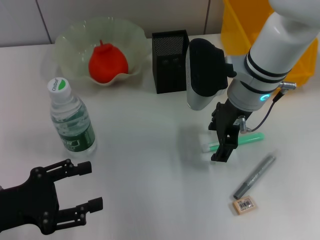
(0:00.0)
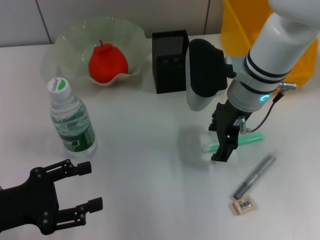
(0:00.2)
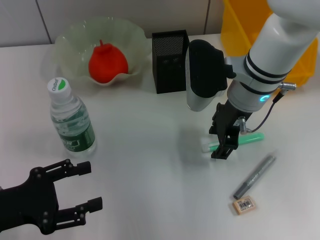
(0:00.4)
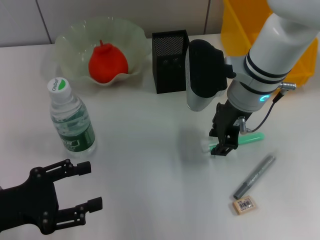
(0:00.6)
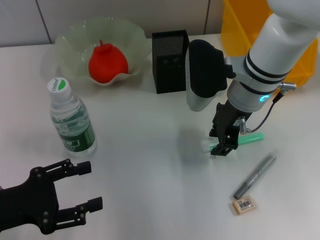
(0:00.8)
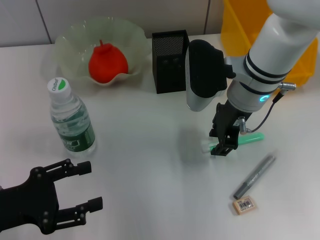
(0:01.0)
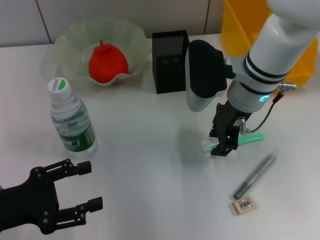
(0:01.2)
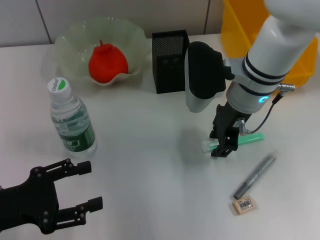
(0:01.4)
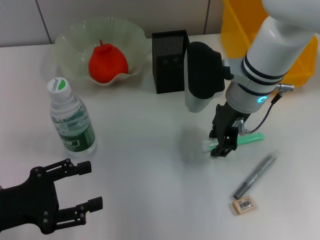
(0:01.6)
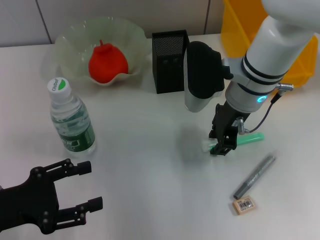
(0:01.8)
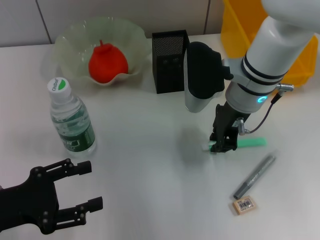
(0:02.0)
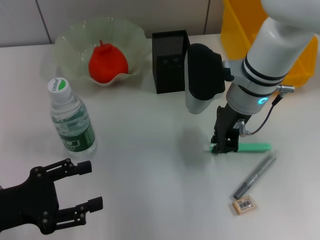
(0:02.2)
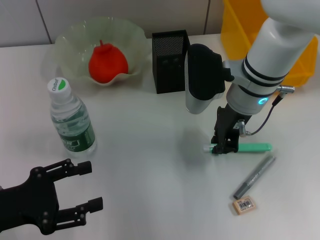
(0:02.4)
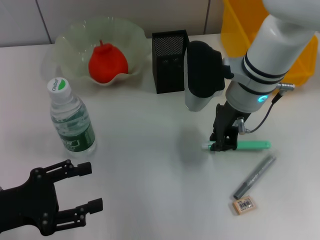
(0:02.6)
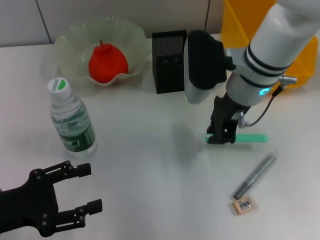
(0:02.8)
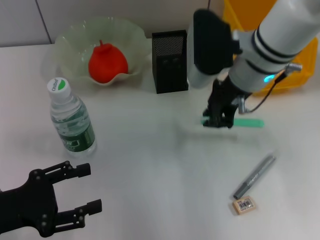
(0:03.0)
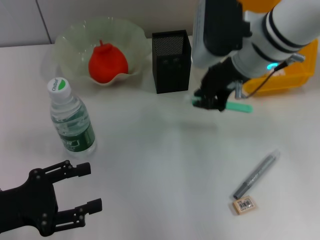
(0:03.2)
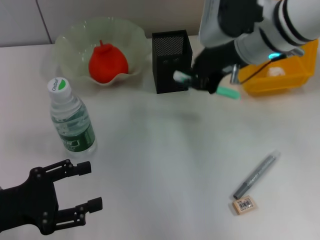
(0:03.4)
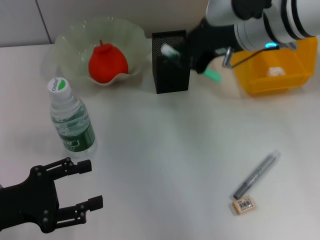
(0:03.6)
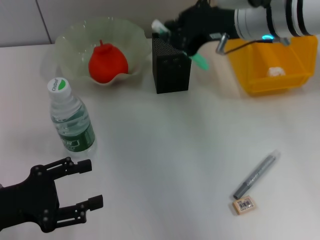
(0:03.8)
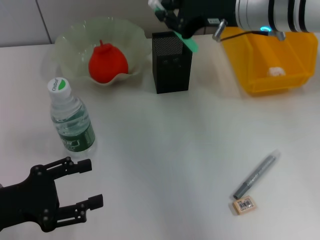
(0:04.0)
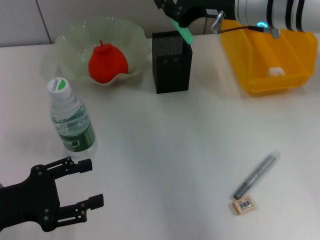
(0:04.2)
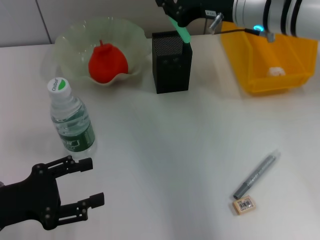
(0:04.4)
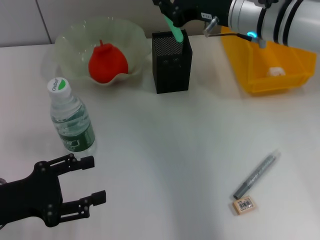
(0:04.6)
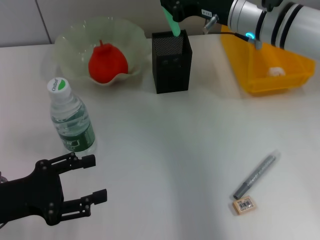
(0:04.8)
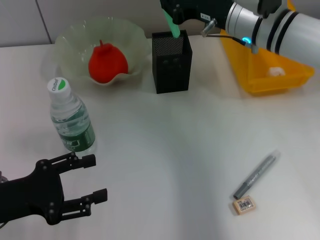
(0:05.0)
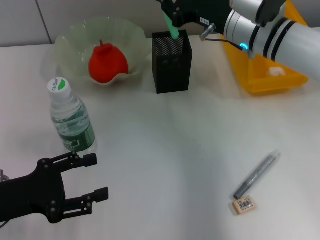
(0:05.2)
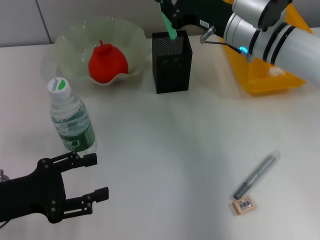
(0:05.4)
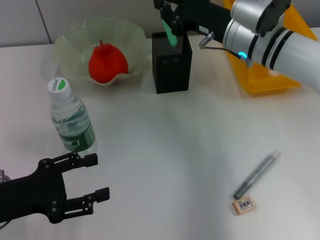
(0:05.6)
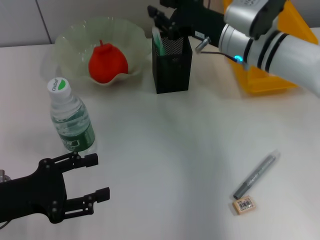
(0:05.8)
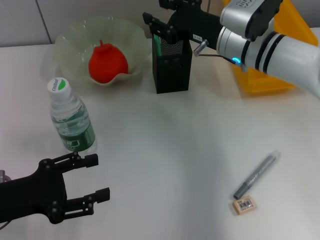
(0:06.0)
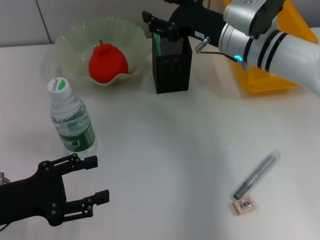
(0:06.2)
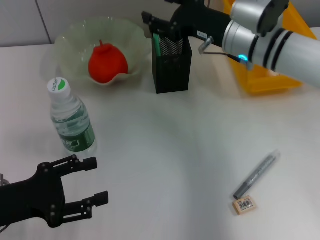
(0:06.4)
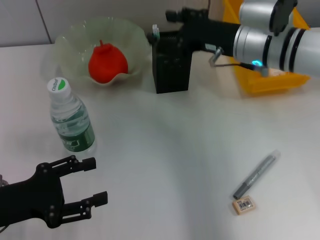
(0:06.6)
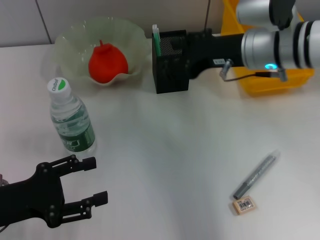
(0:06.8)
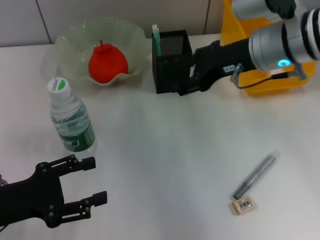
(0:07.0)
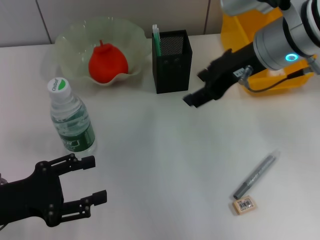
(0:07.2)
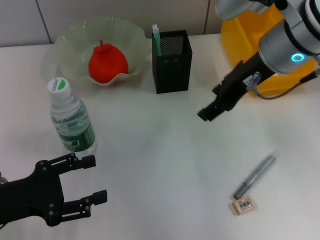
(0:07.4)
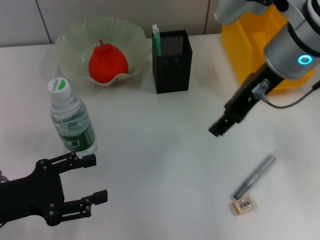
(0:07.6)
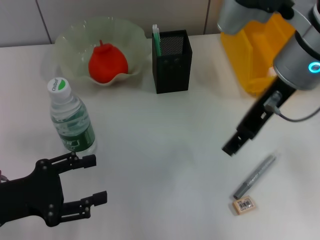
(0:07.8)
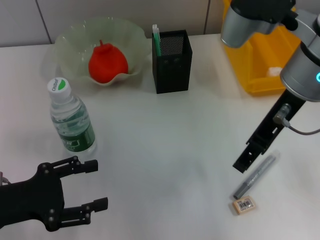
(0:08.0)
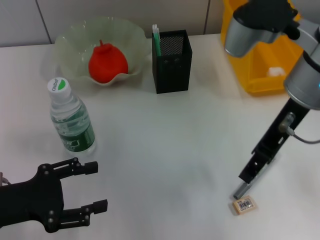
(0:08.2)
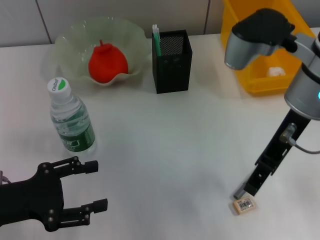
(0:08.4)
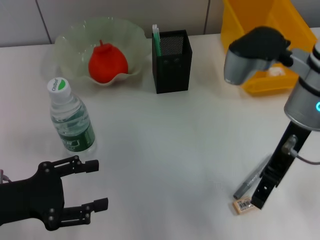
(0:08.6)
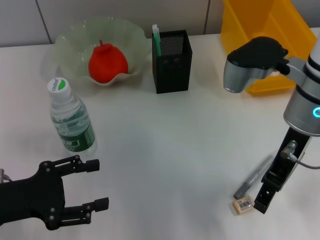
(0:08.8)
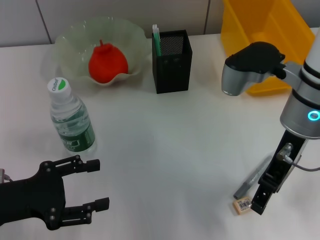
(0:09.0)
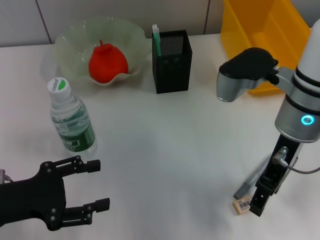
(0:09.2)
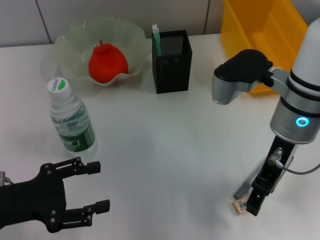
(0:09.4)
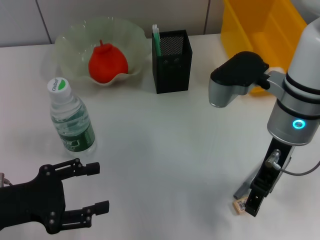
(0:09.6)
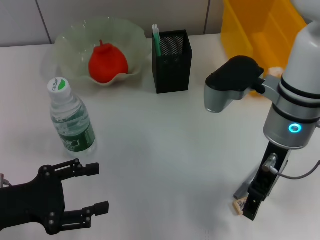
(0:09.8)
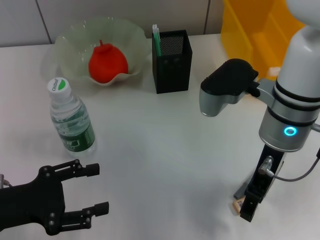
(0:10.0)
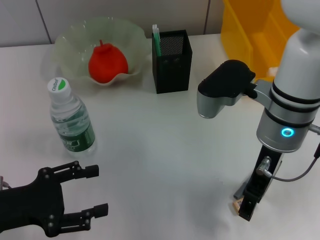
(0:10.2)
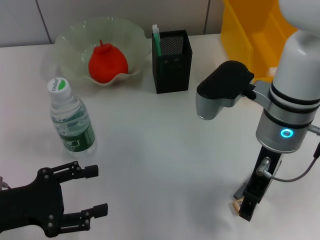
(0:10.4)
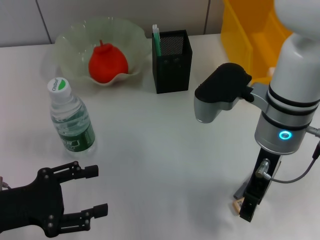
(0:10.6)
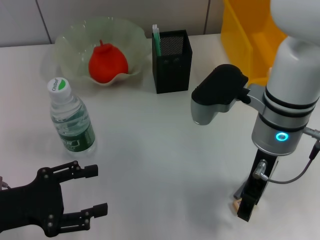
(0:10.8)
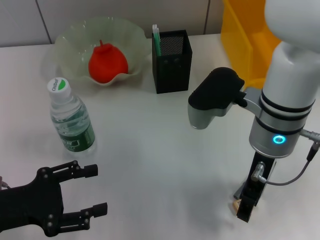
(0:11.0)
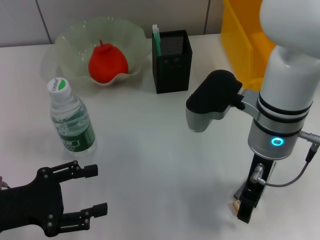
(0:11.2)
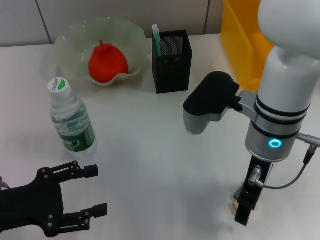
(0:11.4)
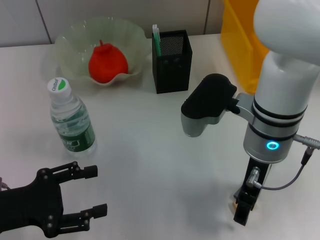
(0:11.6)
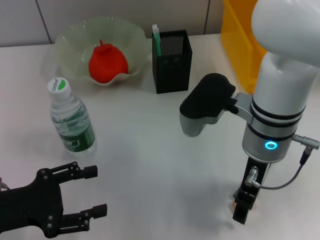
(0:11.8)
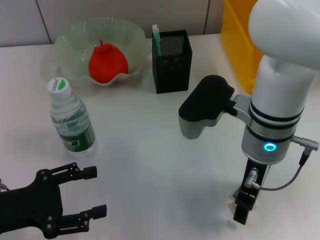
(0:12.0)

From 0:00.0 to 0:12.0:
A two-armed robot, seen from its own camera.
Step, from 0:00.0 to 0:02.2: Grab the blue utility knife with the right hand.
Step, from 0:02.4 to 0:05.8: Place the blue utility knife into the pen holder with the right hand.
From 0:00.0 to 0:01.6: The right gripper closes its fingers.
From 0:01.6 to 0:03.0: The grippers make only small movements.
From 0:04.4 to 0:06.0: The right gripper travels downward by approximately 5 cm.
From 0:06.0 to 0:07.6: The right gripper shifts about 15 cm upward and backward, and opens its fingers.
From 0:07.6 to 0:09.0: The right gripper moves downward, some 5 cm.
From 0:09.0 to 0:10.4: There are only small adjustments of the grippers.
From 0:10.4 to 0:12.0: The grippers make only small movements.

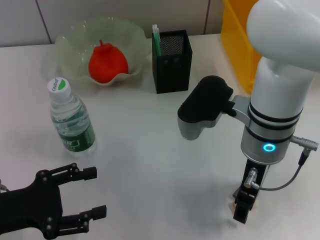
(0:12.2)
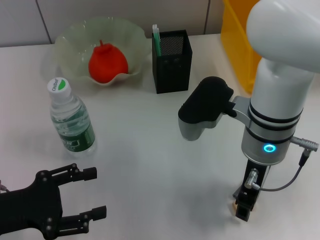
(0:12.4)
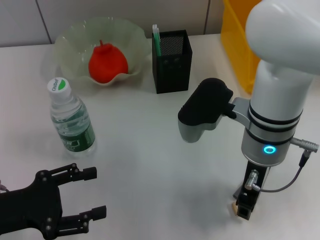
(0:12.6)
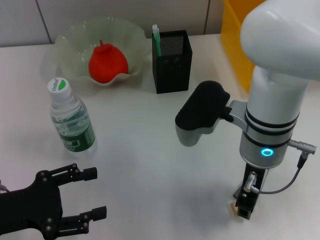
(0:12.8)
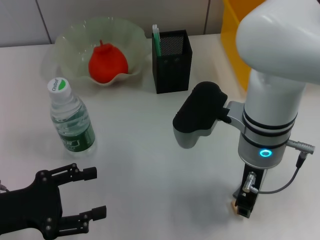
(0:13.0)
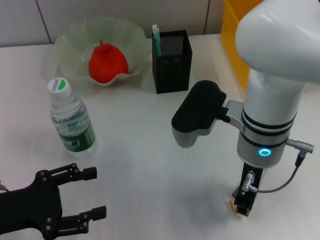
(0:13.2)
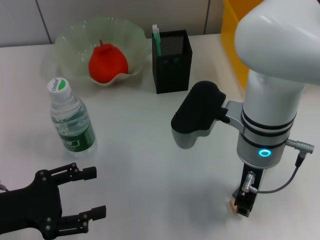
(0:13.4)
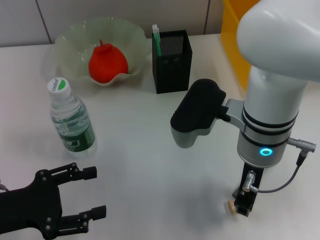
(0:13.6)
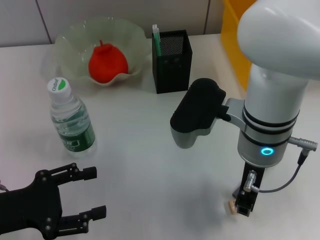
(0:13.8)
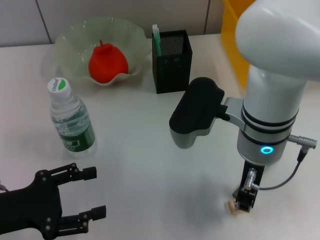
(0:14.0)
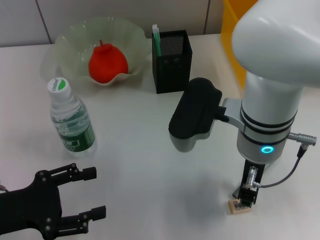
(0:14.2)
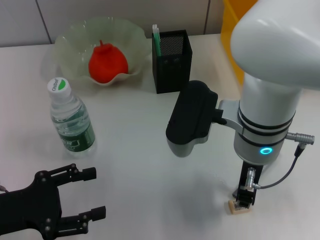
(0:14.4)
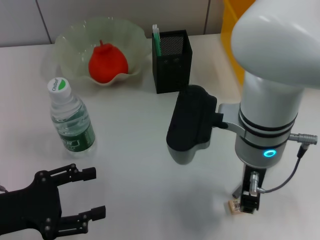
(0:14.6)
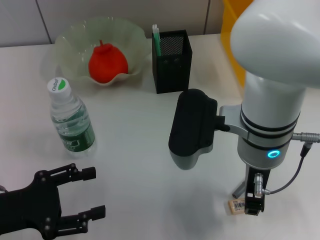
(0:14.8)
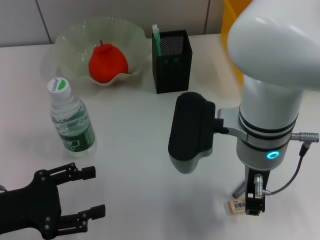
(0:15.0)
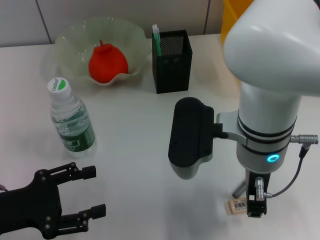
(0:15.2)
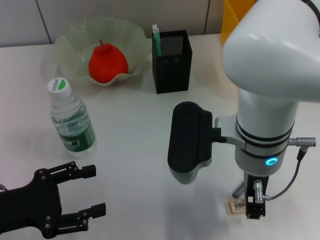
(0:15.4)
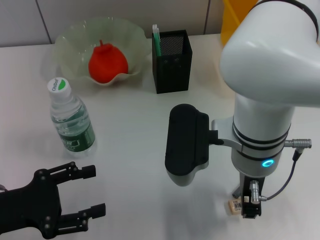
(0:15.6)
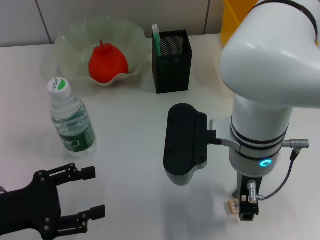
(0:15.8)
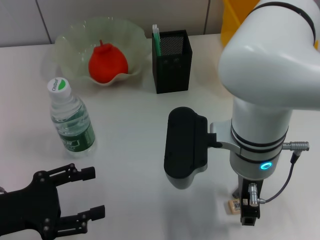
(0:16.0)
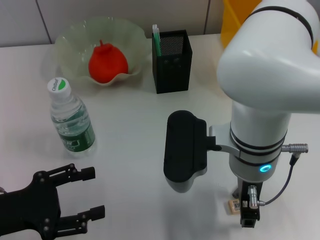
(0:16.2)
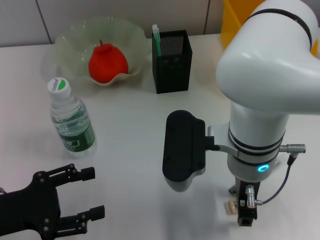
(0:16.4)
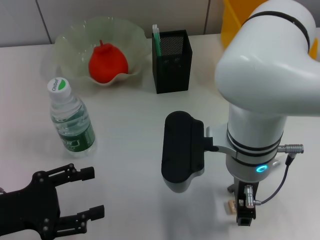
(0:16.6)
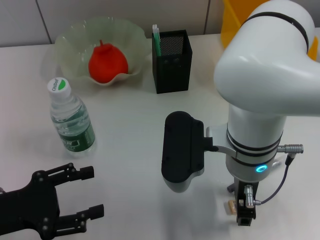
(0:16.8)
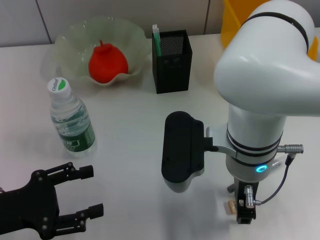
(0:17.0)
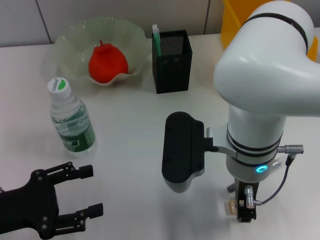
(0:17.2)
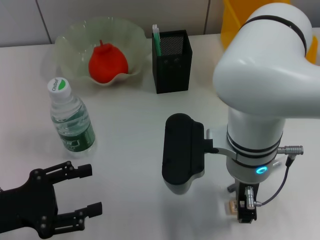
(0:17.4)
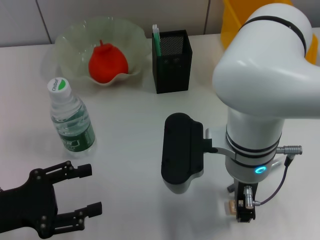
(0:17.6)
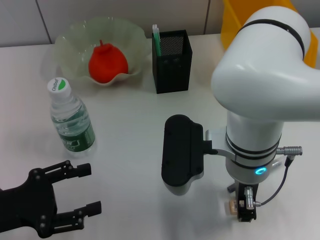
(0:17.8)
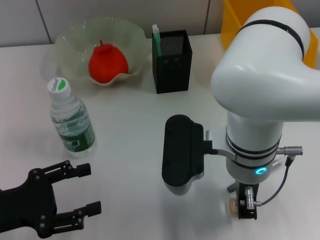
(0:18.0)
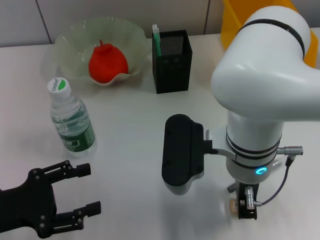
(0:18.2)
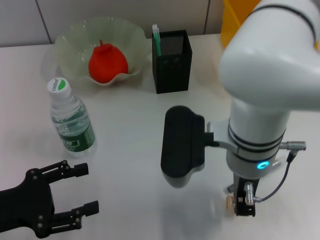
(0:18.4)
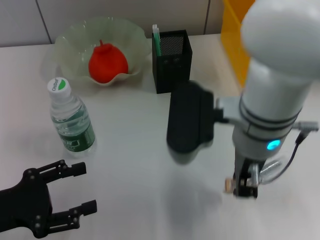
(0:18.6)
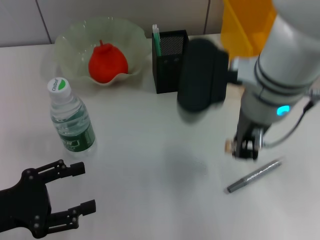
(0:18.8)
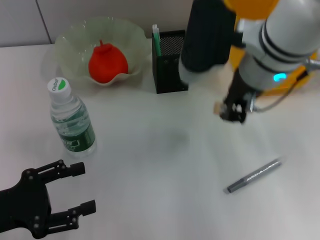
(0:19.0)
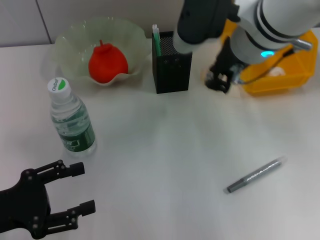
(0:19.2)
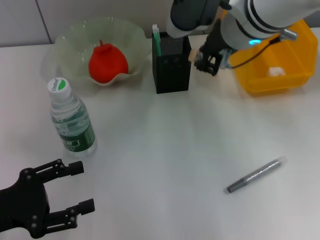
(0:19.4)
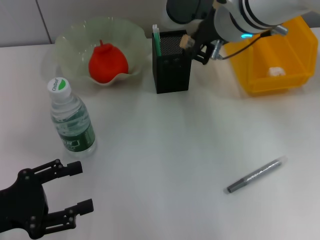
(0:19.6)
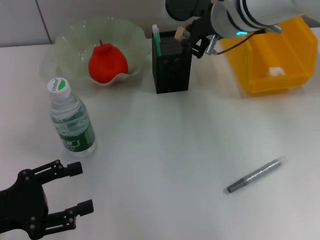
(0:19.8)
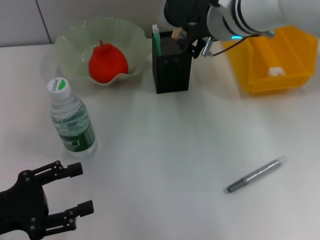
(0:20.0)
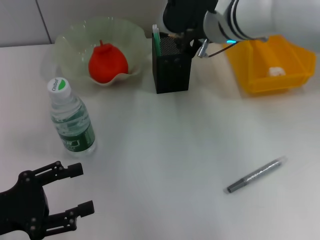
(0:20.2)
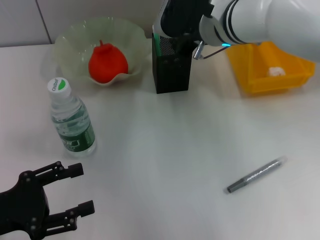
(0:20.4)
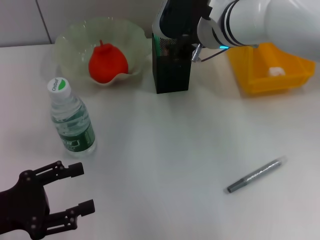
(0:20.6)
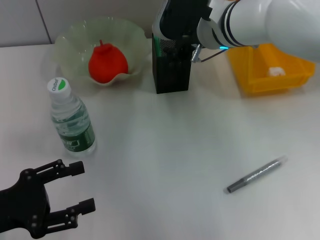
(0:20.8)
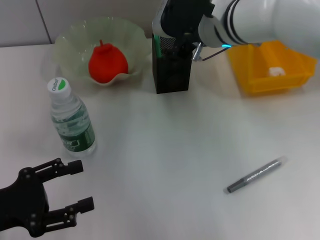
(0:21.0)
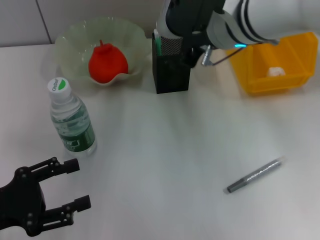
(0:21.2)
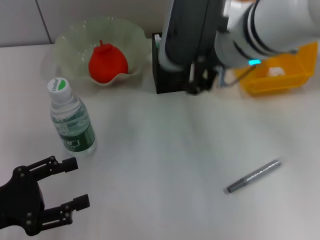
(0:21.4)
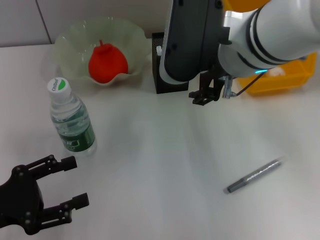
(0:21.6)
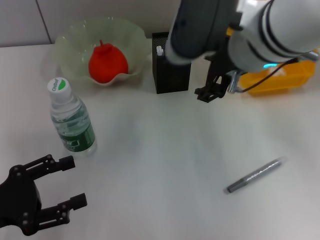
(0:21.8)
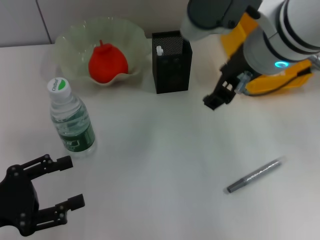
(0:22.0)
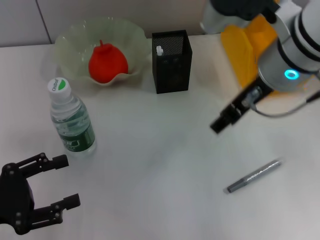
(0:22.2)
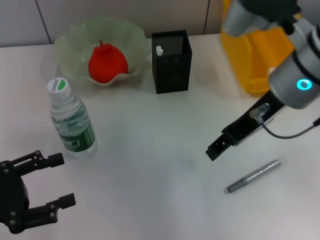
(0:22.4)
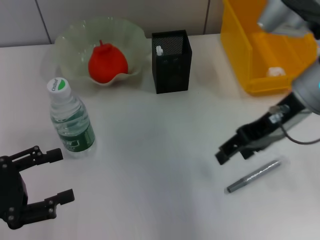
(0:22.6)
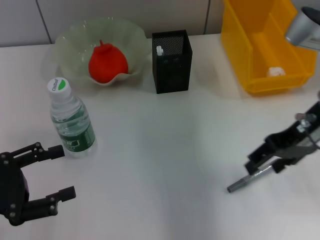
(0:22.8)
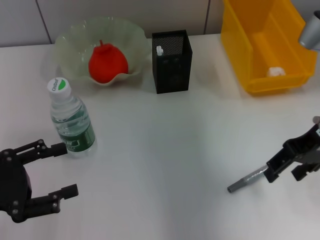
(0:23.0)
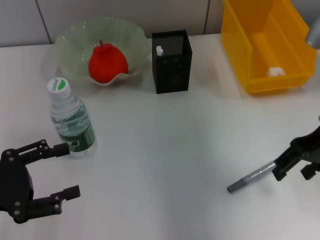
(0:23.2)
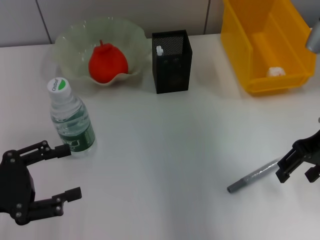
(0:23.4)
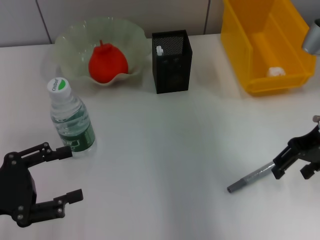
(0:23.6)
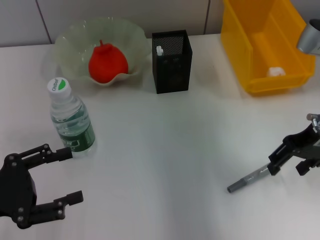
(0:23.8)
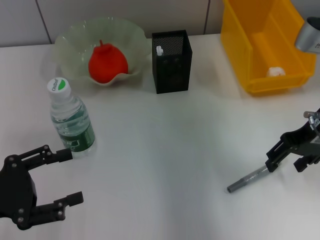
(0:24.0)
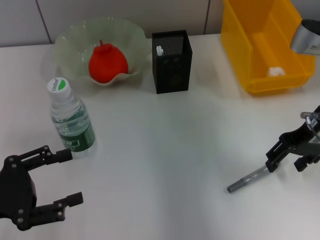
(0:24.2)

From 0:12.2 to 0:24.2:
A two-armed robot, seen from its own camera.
Step, from 0:12.2 to 0:18.2: Grab the eraser with the right hand.
Step, from 0:18.4 to 0:20.4: Put the eraser into the pen holder with the right hand.
From 0:12.2 to 0:13.8: The right gripper closes.
From 0:13.8 to 0:15.2: The grippers make only small movements.
From 0:16.6 to 0:18.2: The right gripper closes up.
From 0:18.2 to 0:19.8: The right gripper goes roughly 15 cm forward and upward.
From 0:19.8 to 0:21.2: The right gripper opens its fingers.
From 0:21.2 to 0:22.6: The right gripper moves to the right, about 10 cm.
From 0:22.6 to 0:24.2: The right gripper shifts some 5 cm to the right.
